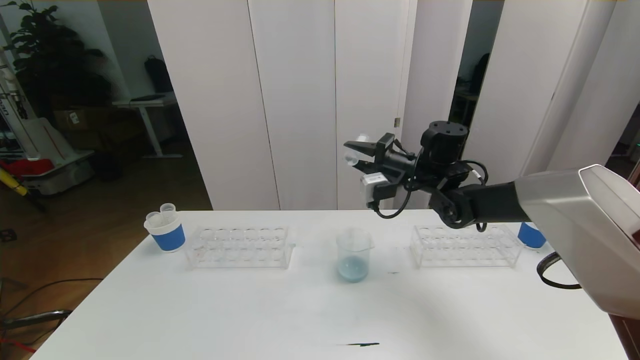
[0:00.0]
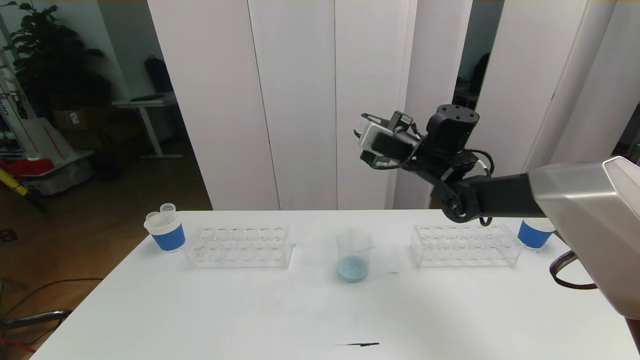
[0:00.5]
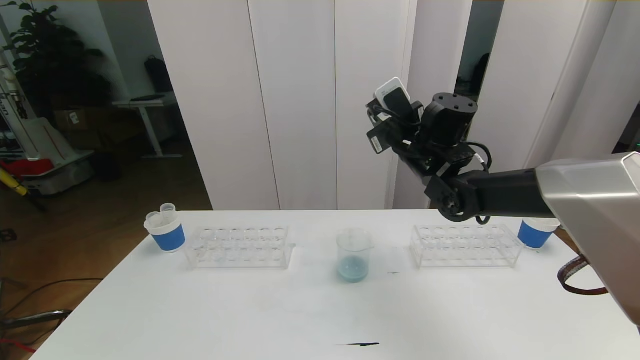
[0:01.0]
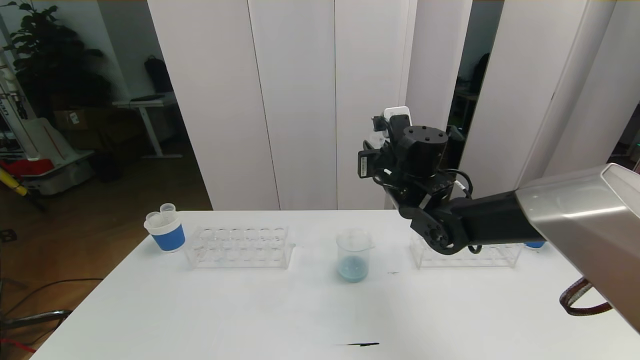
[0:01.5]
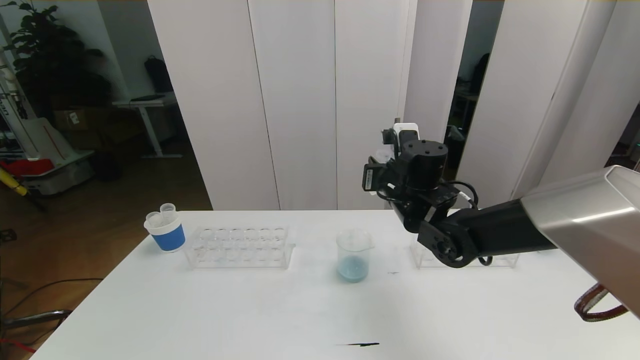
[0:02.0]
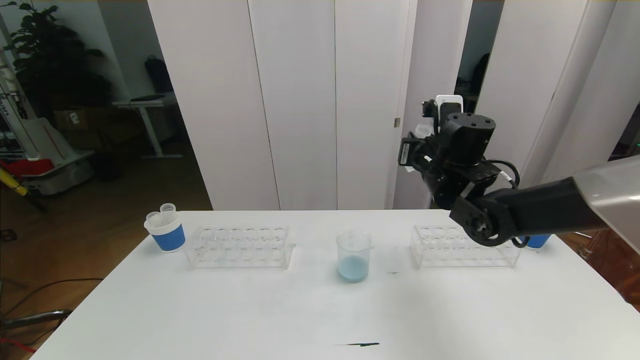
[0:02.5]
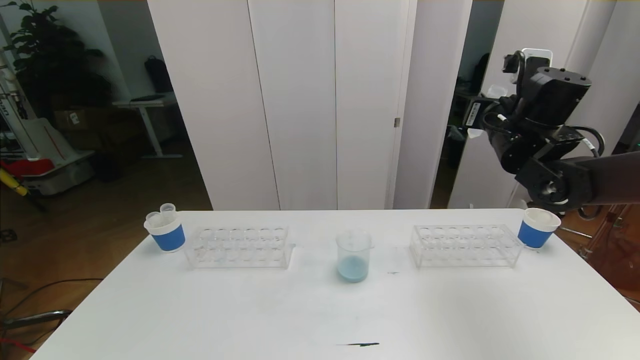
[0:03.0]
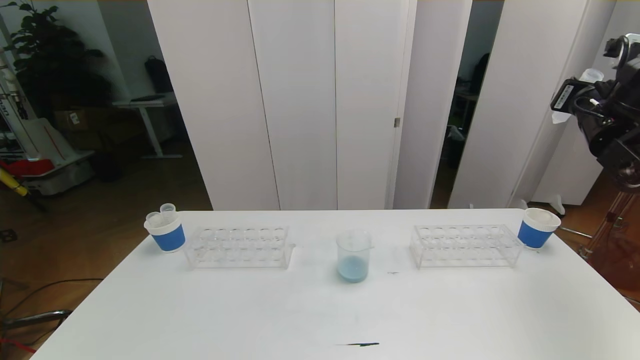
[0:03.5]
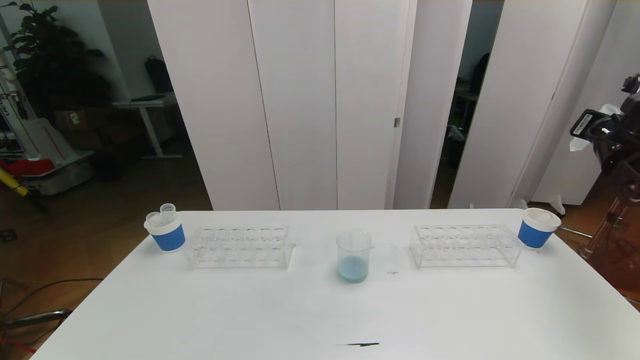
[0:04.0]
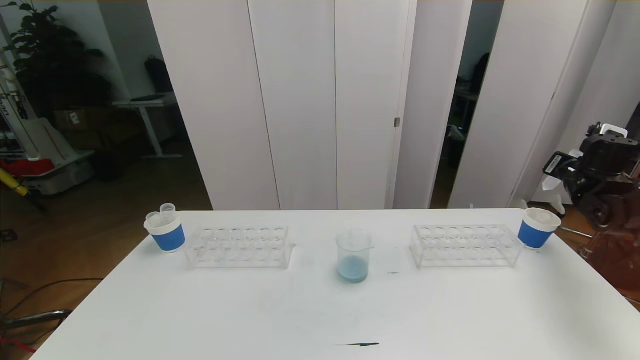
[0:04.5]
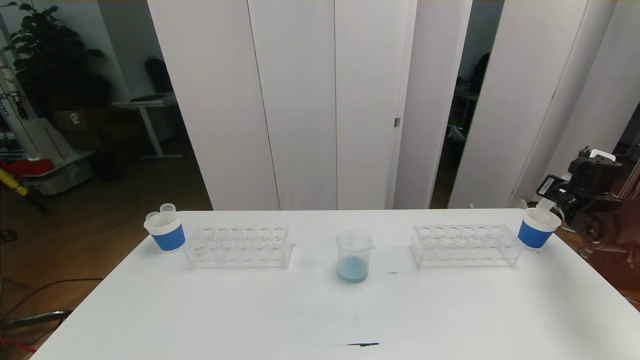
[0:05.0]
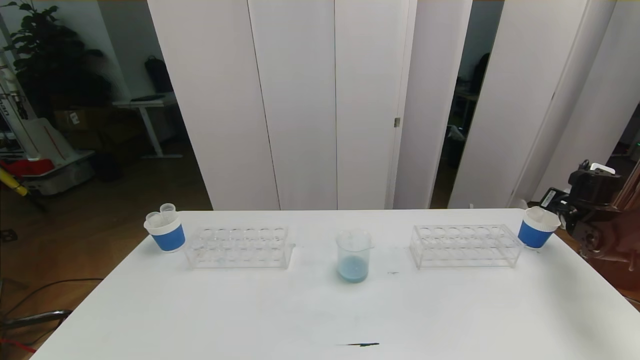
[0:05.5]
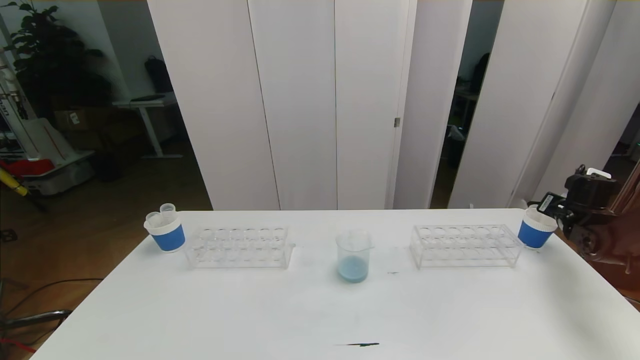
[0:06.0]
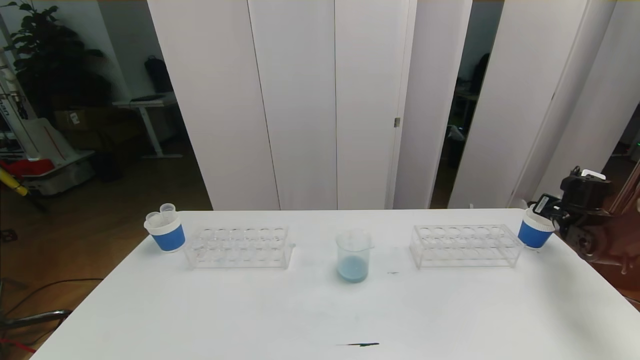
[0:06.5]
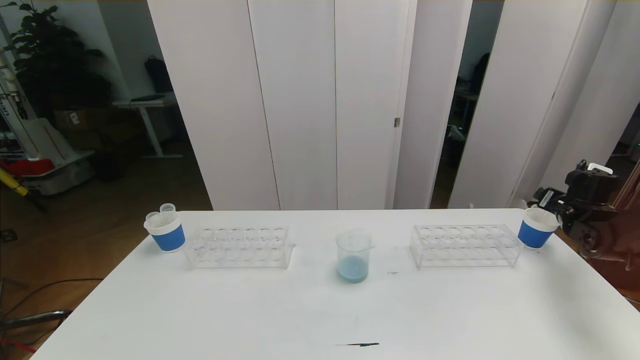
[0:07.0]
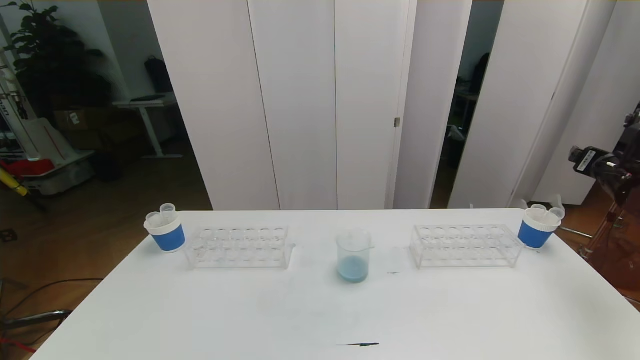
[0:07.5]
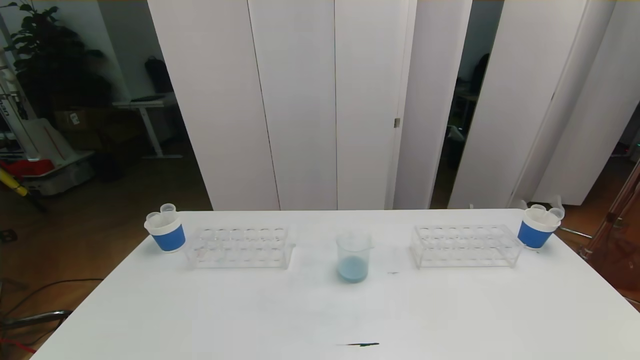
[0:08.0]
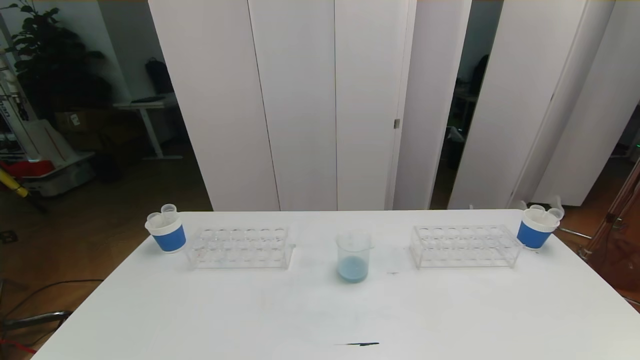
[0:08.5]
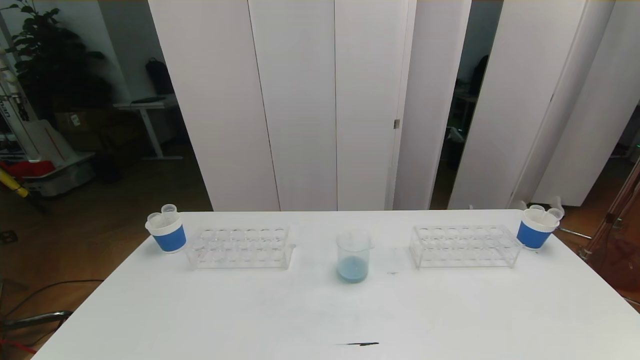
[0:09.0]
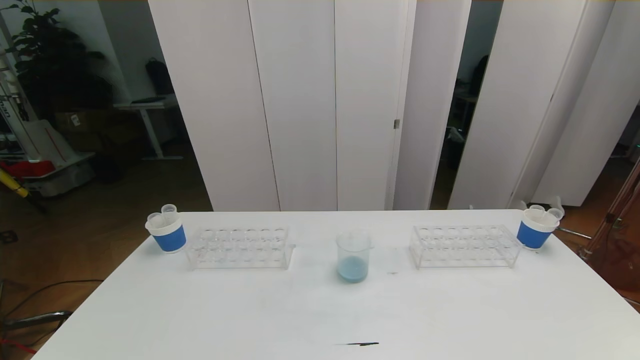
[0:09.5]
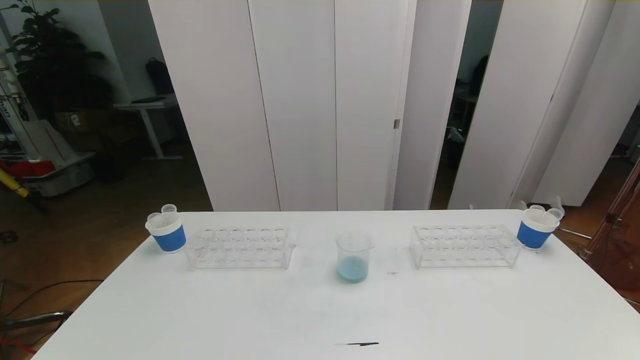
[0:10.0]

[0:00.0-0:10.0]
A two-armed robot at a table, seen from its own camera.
Task of the whole recording: pick up the test tube with red pigment the test tube with blue pigment and the test tube with white pigment by grippers and pour them into the beaker.
0:00.0 to 0:02.0: The right gripper shifts about 5 cm backward.
0:02.0 to 0:04.0: The right gripper heads to the right, covering some 35 cm.
0:04.0 to 0:06.0: The right gripper heads downward, covering roughly 15 cm.
0:06.0 to 0:08.0: The right gripper goes approximately 35 cm upward and backward, and opens.
